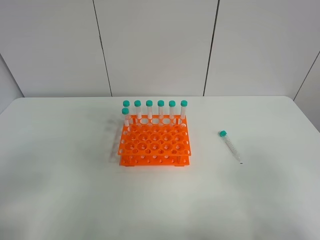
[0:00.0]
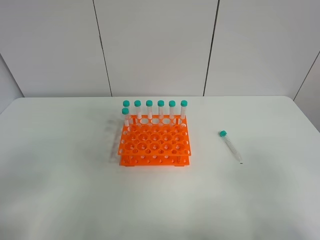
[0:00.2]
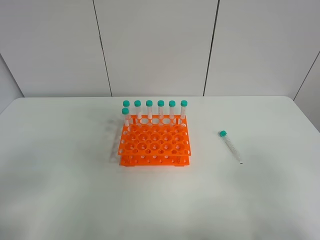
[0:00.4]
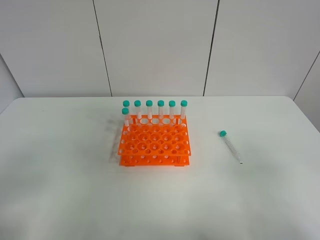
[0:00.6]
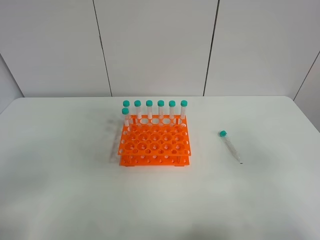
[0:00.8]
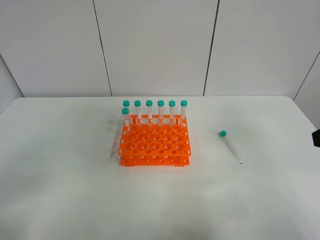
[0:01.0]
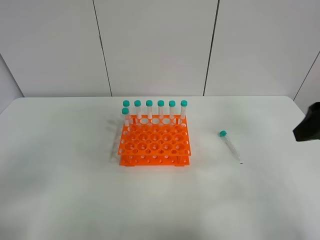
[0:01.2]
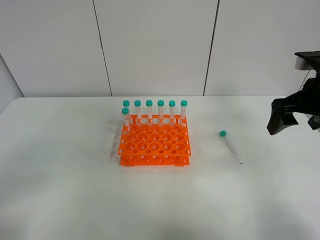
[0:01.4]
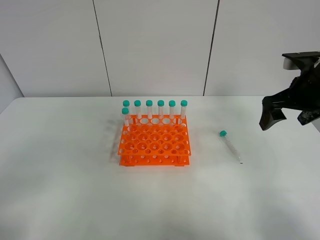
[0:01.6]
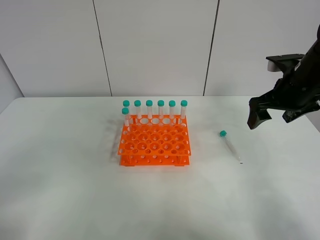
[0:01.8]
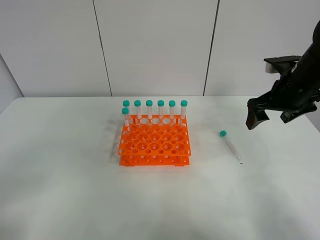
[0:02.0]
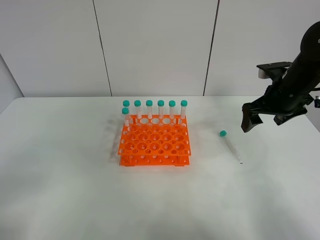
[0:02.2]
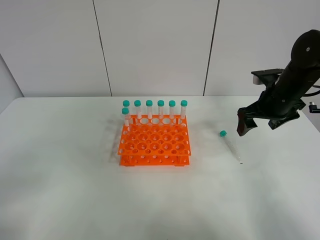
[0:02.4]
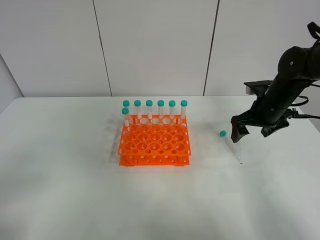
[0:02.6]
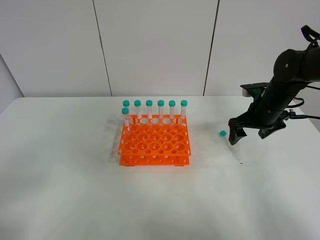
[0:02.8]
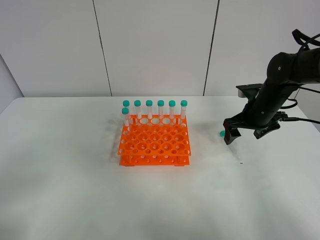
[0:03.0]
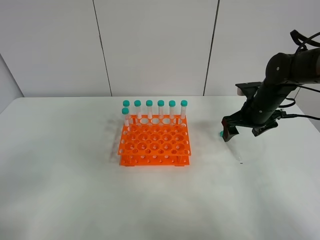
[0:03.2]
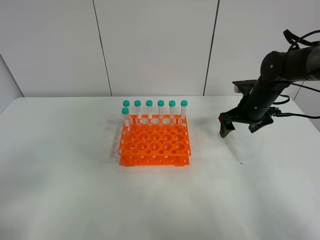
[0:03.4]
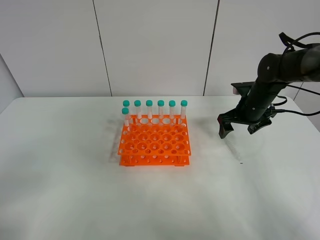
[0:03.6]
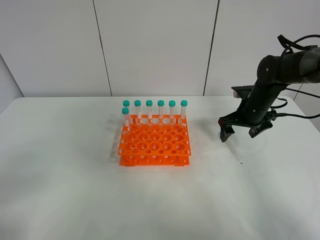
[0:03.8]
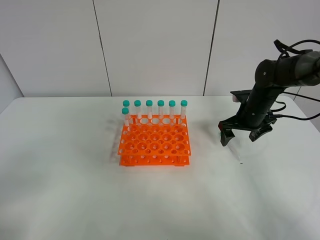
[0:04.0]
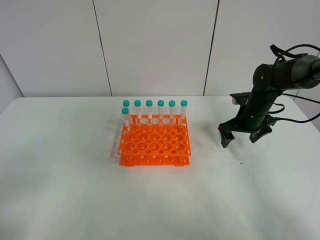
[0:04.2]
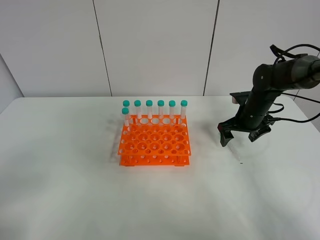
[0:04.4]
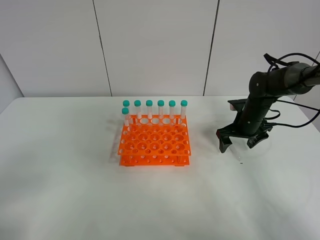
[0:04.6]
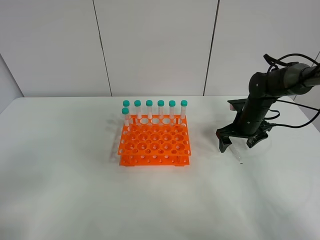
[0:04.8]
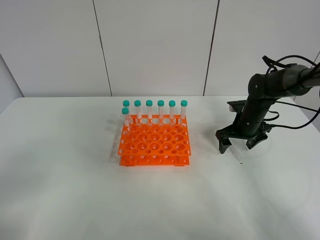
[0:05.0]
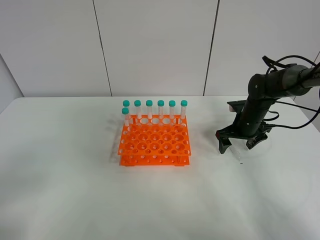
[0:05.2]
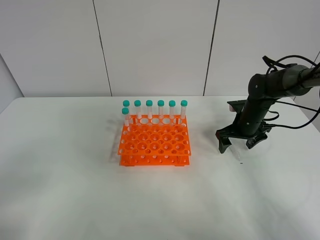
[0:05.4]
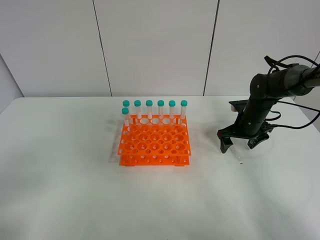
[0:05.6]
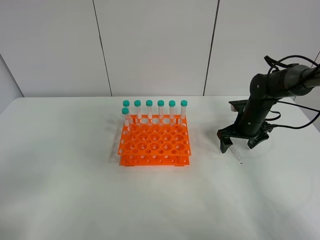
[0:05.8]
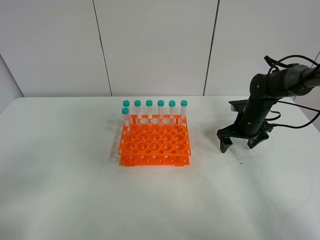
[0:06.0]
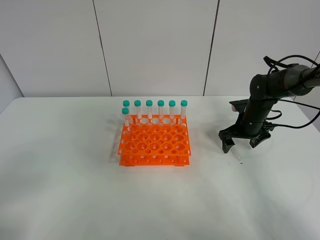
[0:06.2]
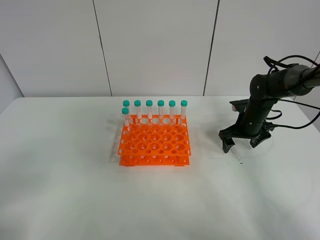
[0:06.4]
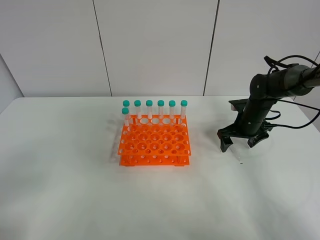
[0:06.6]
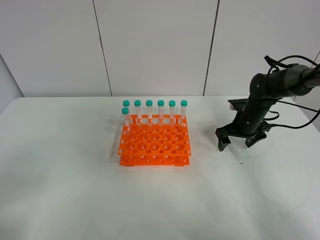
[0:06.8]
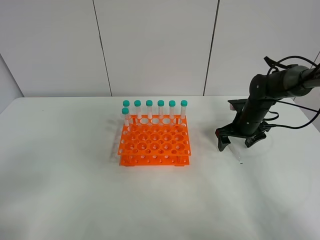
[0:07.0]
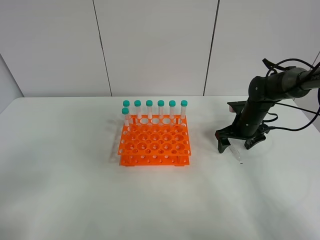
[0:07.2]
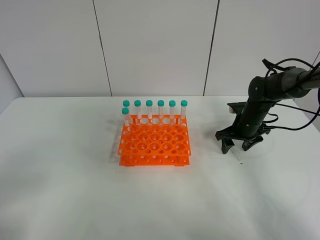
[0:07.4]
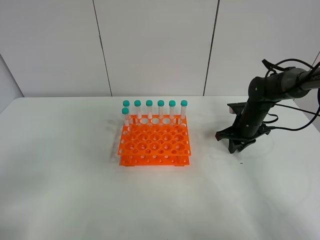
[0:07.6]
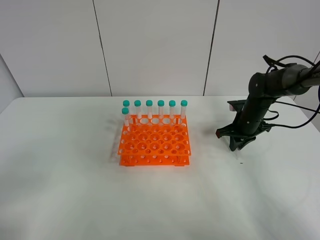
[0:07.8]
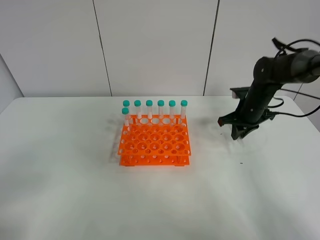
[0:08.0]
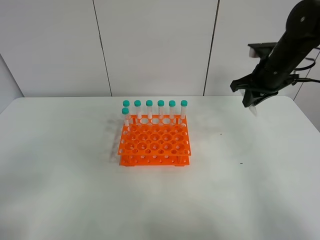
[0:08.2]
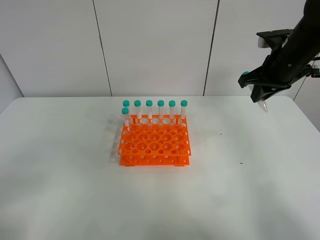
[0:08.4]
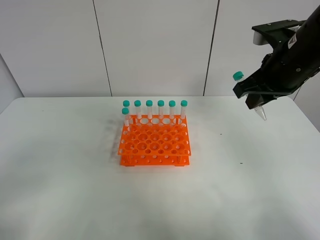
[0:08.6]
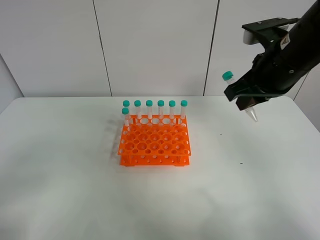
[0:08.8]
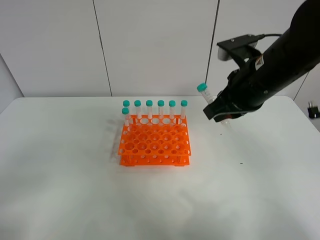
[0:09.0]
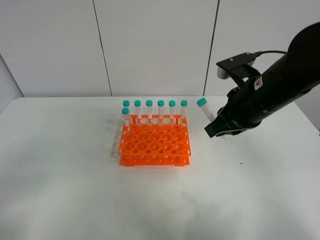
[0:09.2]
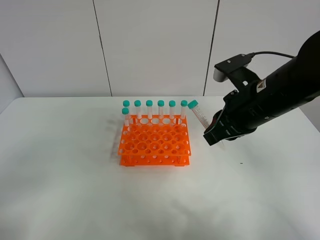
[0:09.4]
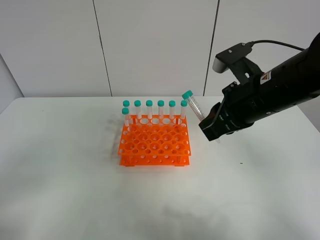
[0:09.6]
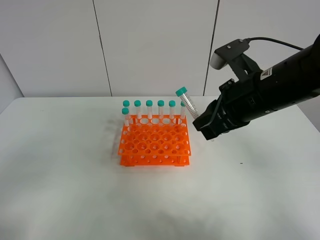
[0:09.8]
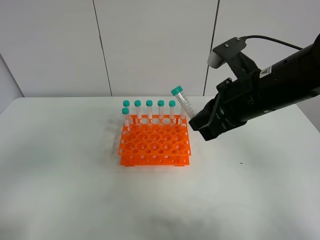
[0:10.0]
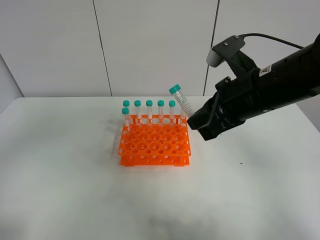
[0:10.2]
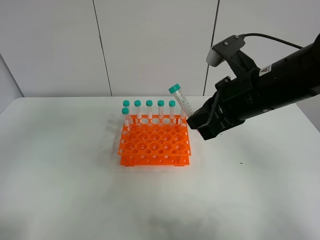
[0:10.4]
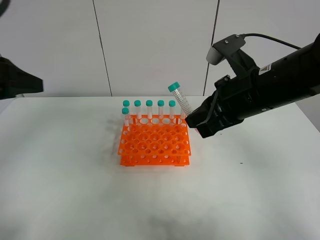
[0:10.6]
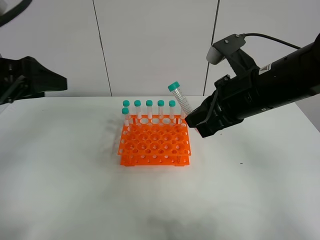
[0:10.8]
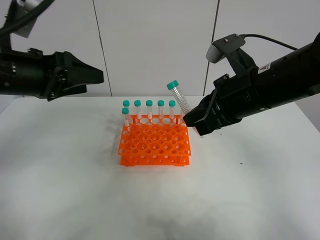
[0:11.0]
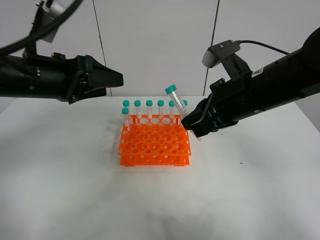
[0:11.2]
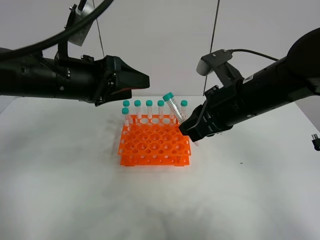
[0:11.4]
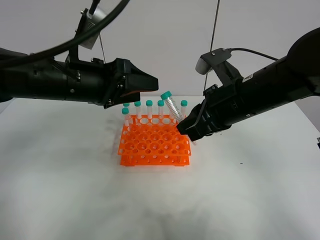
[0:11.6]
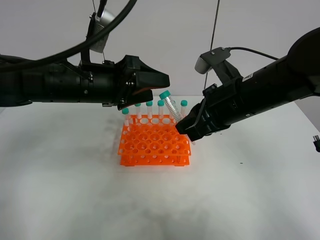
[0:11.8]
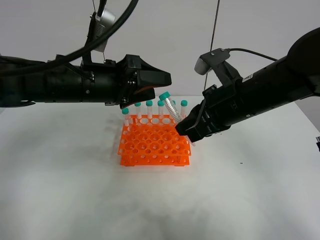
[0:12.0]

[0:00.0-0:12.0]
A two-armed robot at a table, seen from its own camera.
Task of the whole recording: Put the test tube on the table back onto the test tube rack.
Step, 0:00.0 to 0:07.8: Pick up the test tube with the right gripper.
0:00.0 to 0:01.6: The right gripper moves forward, approximately 30 cm.
0:01.6 to 0:03.0: The right gripper shifts approximately 10 cm downward and forward.
0:03.0 to 0:04.4: The right gripper ends up approximately 5 cm from where it was.
0:04.4 to 0:06.0: There are only small adjustments of the grippers.
0:06.0 to 0:07.6: The right gripper closes.
0:07.6 to 0:09.0: The right gripper shifts roughly 25 cm upward, backward and to the left.
0:09.0 to 0:10.4: The left gripper is displaced forward and upward by roughly 15 cm.
0:10.4 to 0:12.0: The left gripper is displaced to the right, forward and downward by some 25 cm.

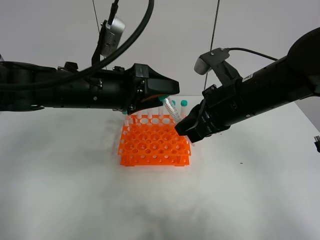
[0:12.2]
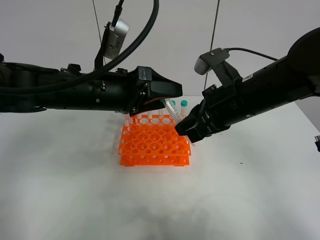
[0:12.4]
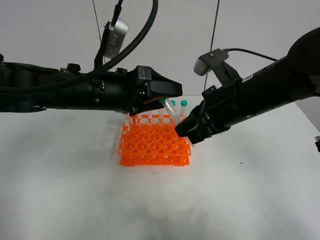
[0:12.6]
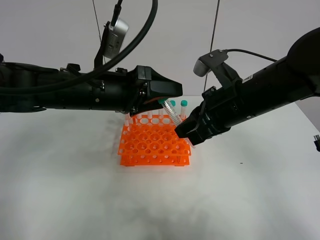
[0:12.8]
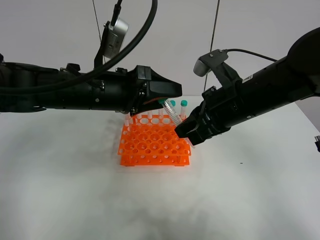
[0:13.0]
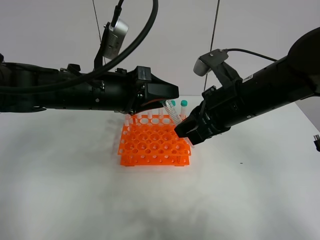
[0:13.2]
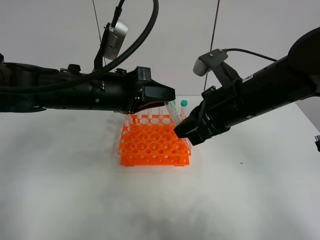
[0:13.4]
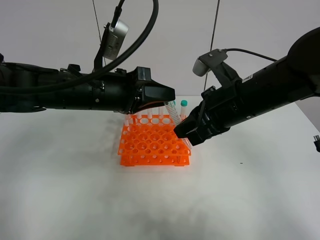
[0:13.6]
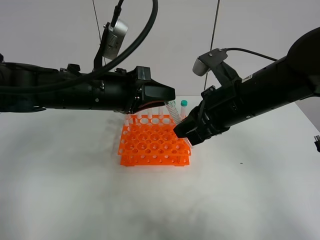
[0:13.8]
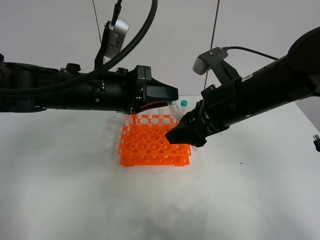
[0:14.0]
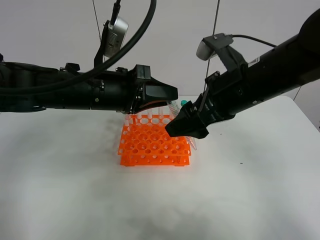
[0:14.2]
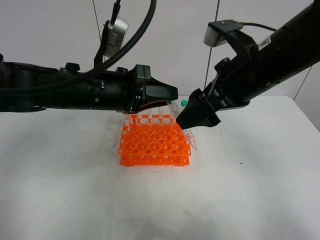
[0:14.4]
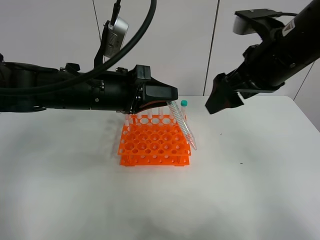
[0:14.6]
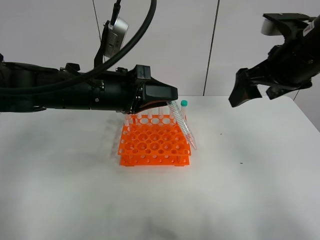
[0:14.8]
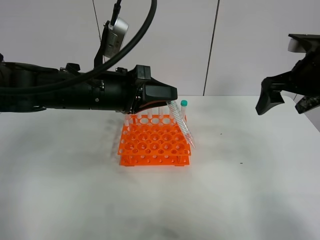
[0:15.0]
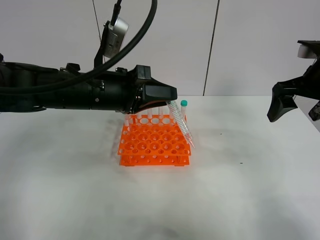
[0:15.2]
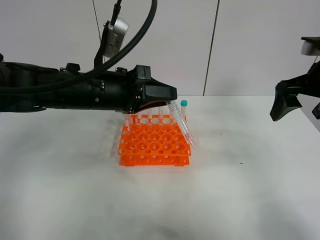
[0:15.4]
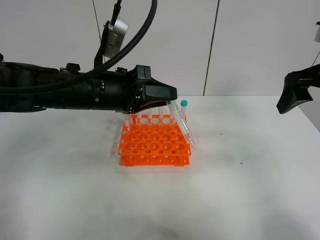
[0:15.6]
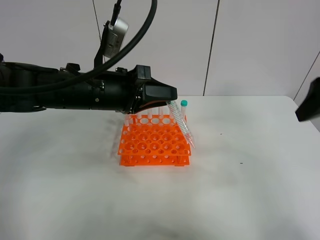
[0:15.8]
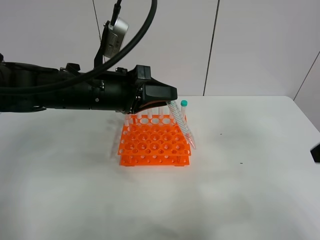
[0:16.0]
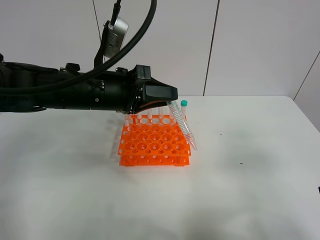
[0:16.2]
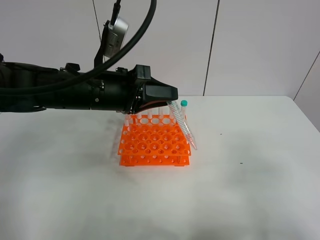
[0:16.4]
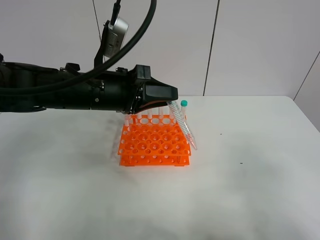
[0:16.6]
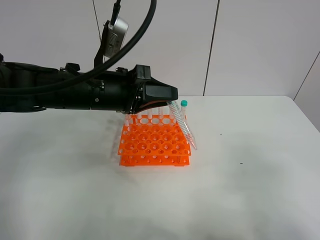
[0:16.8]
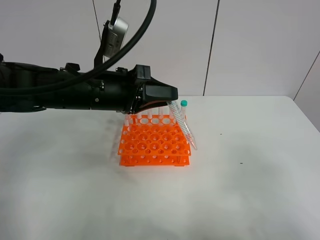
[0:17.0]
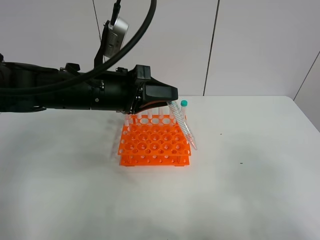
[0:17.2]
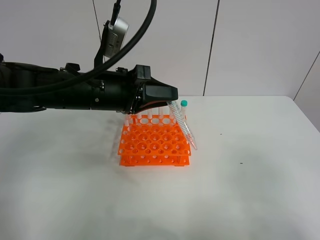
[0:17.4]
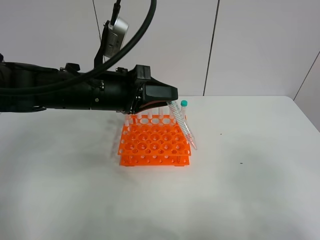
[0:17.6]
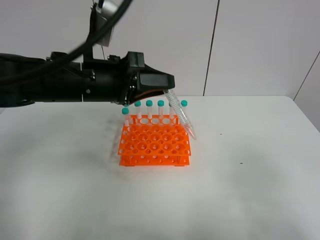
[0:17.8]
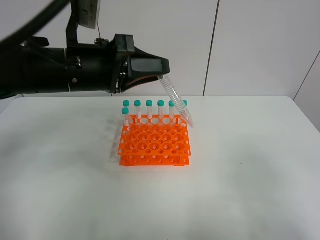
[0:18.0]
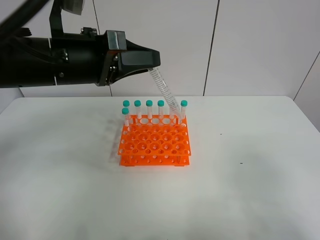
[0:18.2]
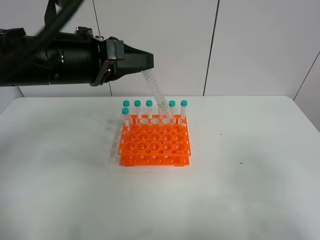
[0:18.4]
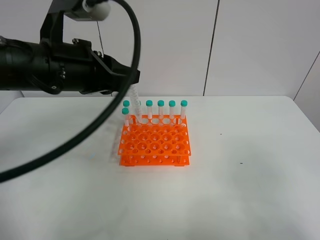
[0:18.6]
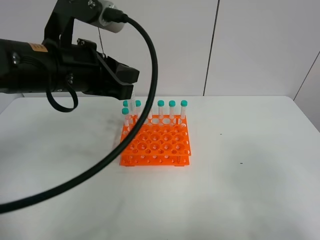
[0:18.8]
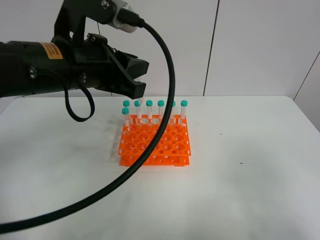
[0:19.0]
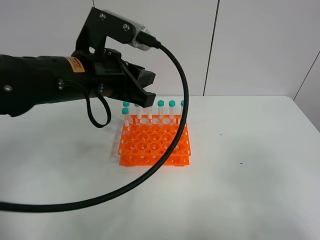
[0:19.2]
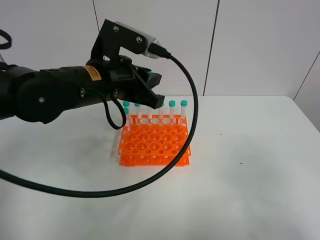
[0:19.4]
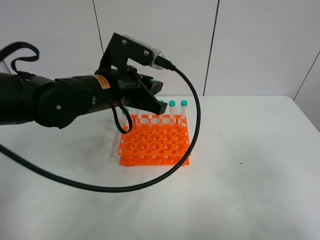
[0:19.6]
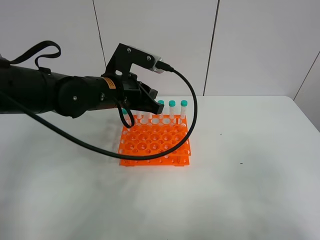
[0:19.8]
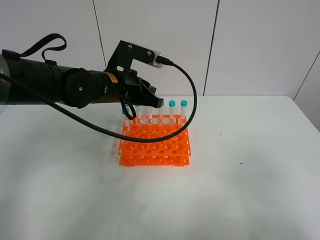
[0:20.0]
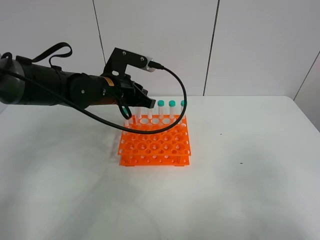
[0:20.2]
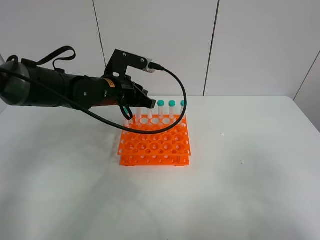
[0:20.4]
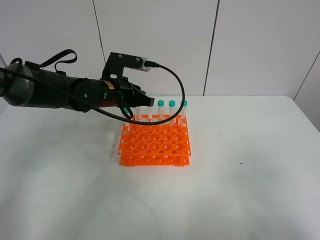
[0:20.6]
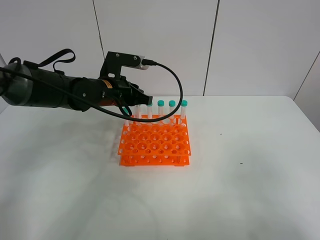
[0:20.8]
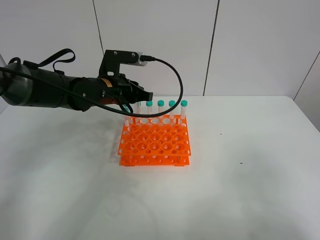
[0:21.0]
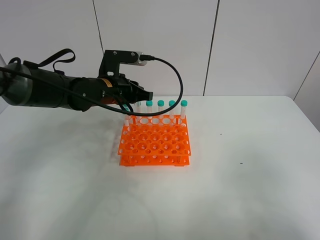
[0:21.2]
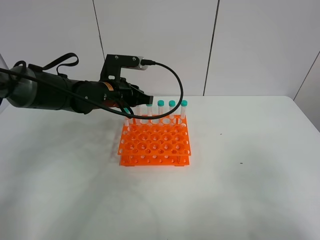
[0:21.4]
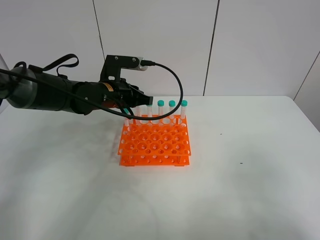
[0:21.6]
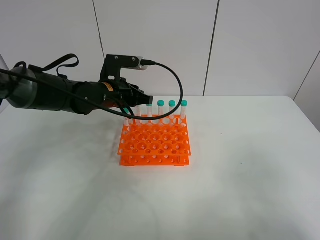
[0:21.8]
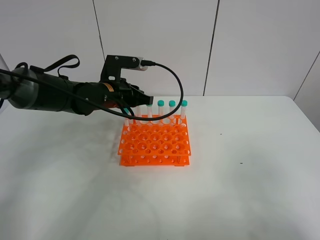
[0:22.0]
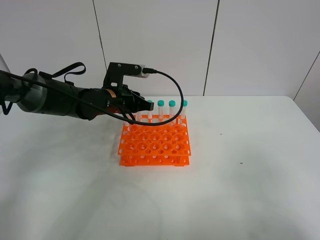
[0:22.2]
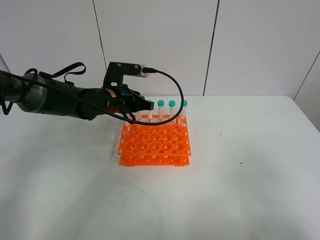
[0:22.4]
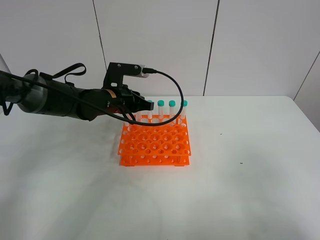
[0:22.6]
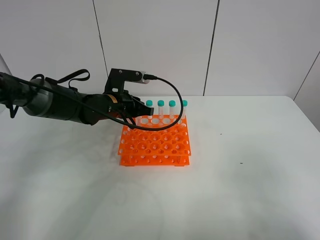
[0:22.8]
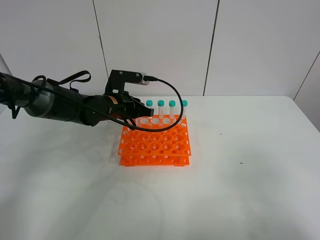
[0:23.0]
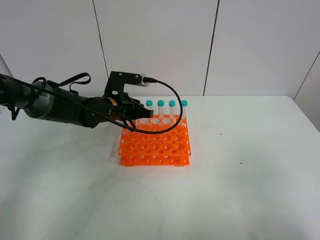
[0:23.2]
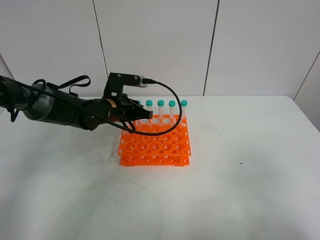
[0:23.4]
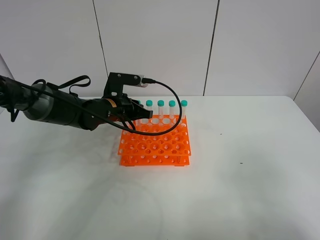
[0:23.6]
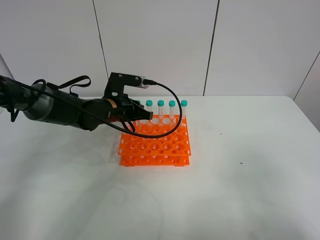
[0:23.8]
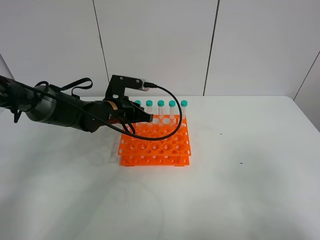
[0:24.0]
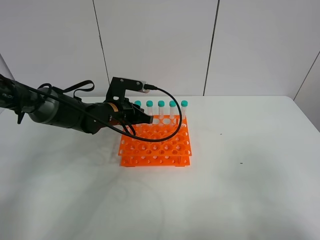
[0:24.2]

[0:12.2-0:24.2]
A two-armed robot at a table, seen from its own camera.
Task of the whole recording: Put the test tube on the table back onto the test tube rack.
Step, 0:12.2 to 0:14.4: Move the test tube from the right gripper to the left gripper.
0:12.2 to 0:13.8: The left gripper closes.
0:13.8 to 0:15.2: The right gripper moves to the right, roughly 15 cm, and opens.
0:15.2 to 0:16.6: The right gripper heads backward, covering roughly 25 cm.
0:16.6 to 0:18.2: The left gripper is displaced upward by approximately 5 cm.
0:18.2 to 0:19.8: The left gripper is displaced downward and forward by about 10 cm.
0:19.8 to 0:21.2: The left gripper moves about 5 cm.
0:21.2 to 0:22.6: The grippers move only a little.
0:22.6 to 0:24.2: There are only small adjustments of the grippers.
